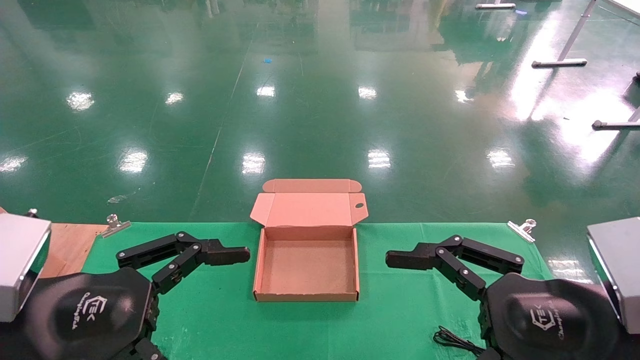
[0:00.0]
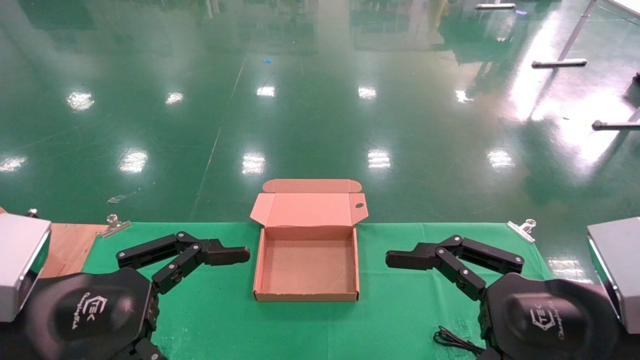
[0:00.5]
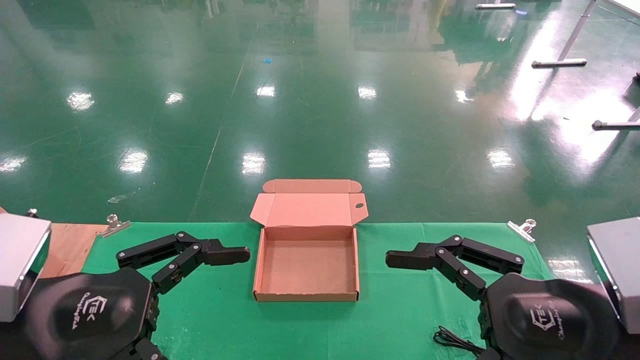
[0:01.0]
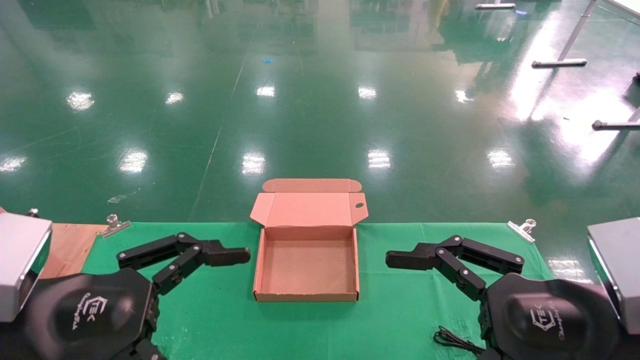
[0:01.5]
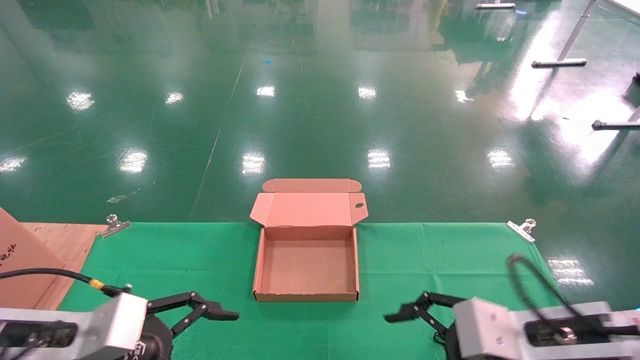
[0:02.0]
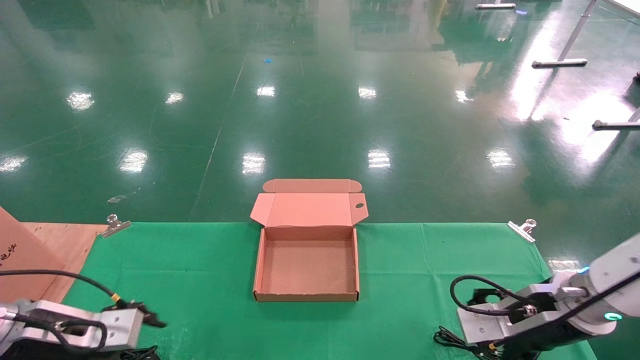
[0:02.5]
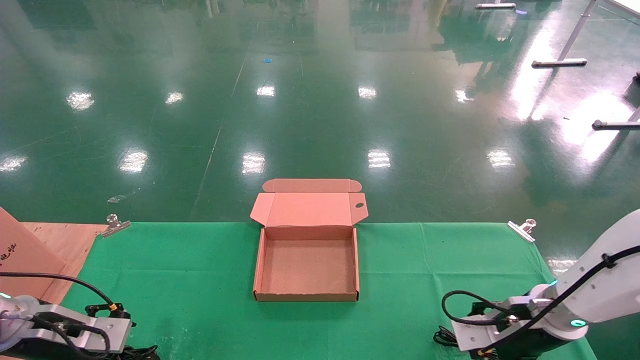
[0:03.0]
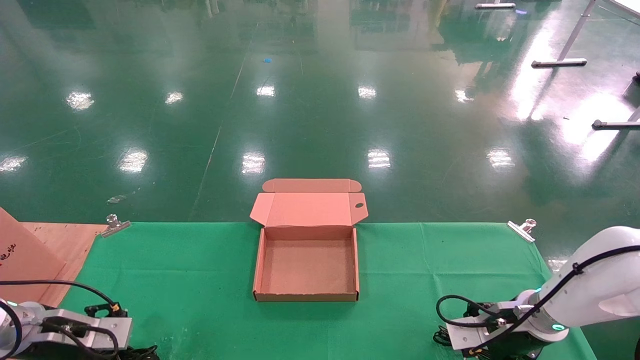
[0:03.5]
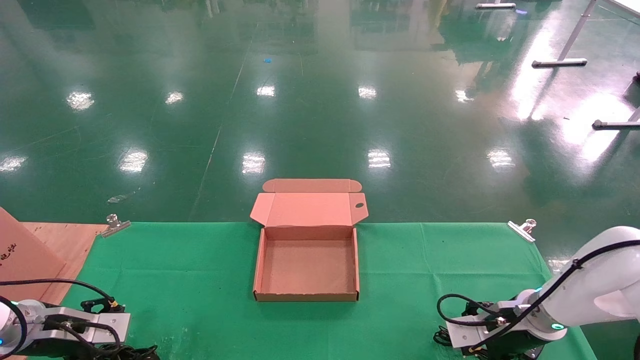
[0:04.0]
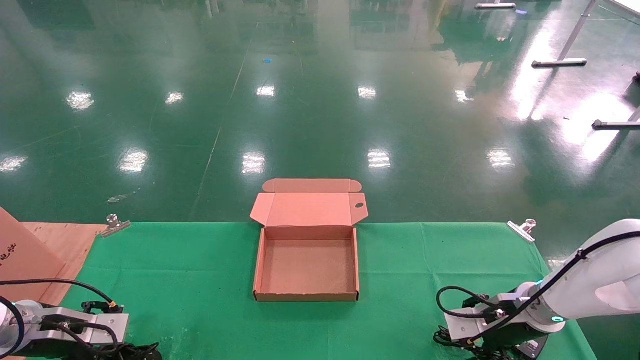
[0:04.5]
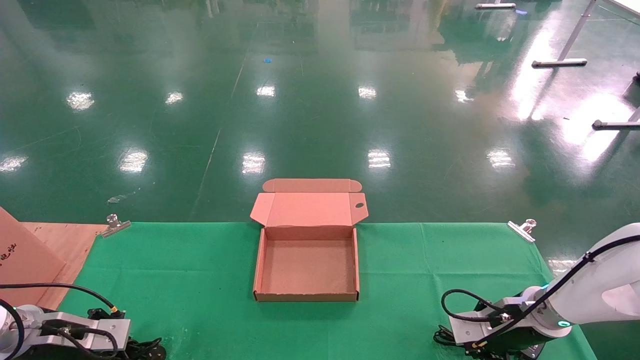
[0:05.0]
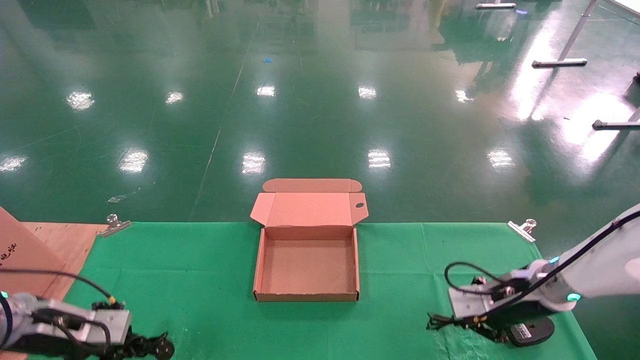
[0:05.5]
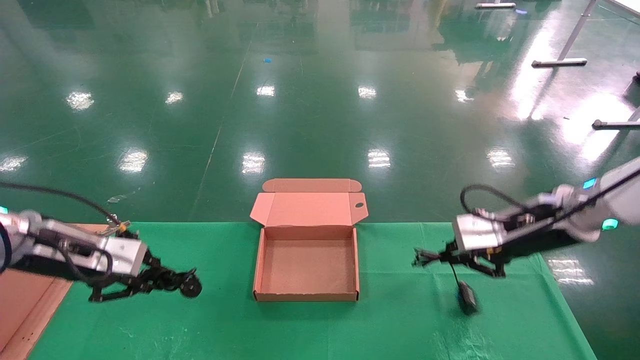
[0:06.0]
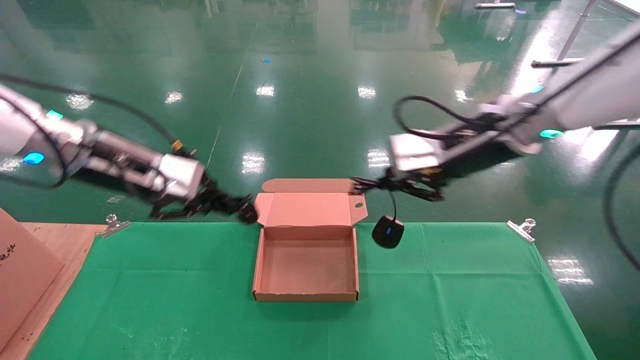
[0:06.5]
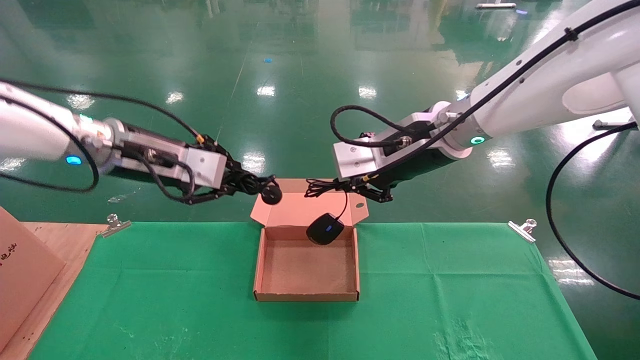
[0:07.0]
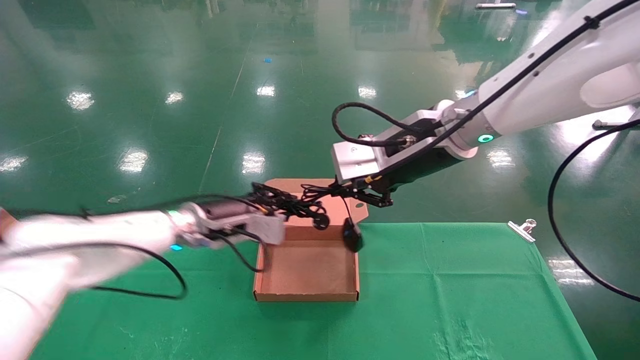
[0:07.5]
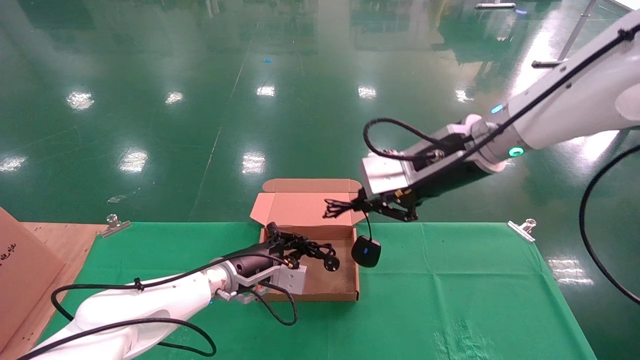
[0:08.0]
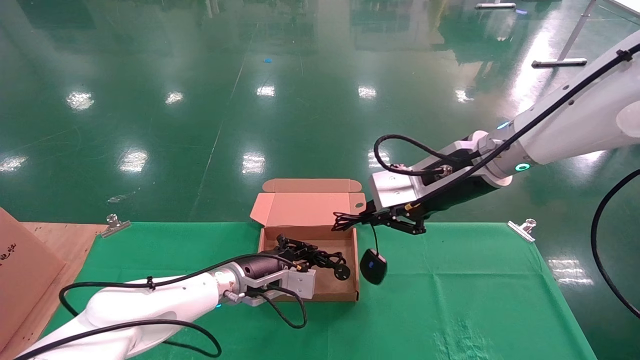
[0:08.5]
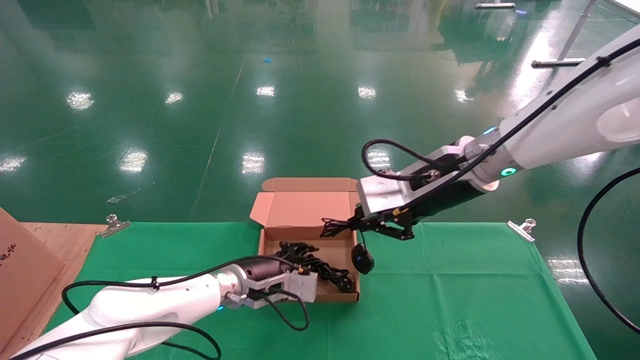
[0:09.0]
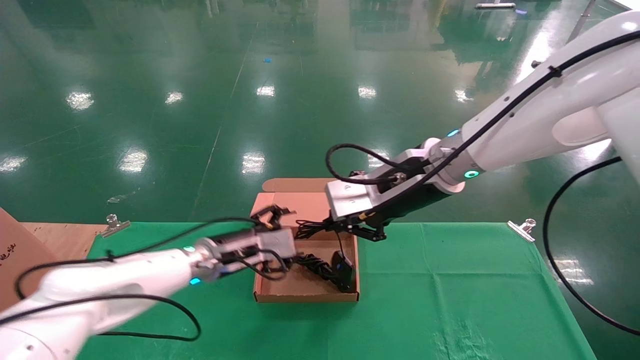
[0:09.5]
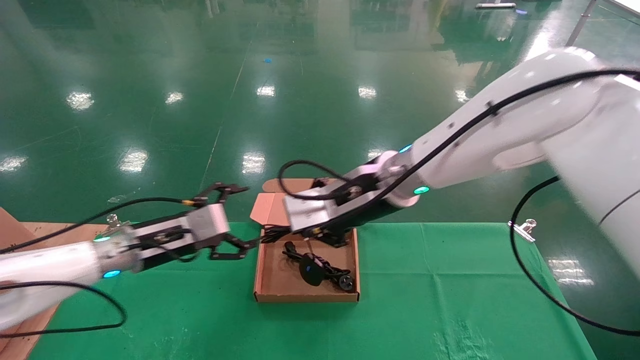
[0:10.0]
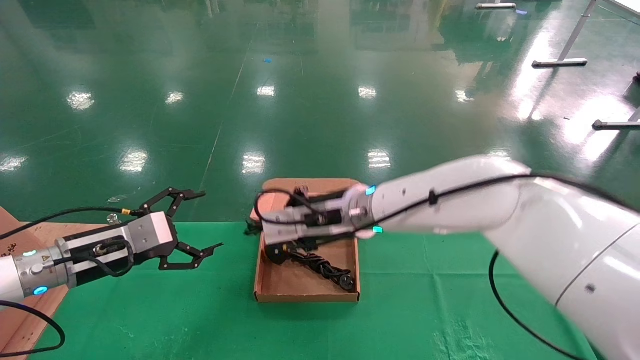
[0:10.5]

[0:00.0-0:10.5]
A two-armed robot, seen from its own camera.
Step, 0:02.0 to 0:06.5: Grab and lift both the mouse and power cord from the accessory packaging area at the same time.
0:00.0 to 0:02.0: The right gripper is displaced forward and downward by some 10 cm, while the left gripper is displaced downward and forward by about 10 cm.
0:02.0 to 0:04.0: The right gripper shifts some 20 cm forward and downward, while the left gripper goes some 20 cm to the left, forward and downward.
0:04.0 to 0:06.5: The right gripper heads upward, covering roughly 30 cm, and closes, while the left gripper shifts some 30 cm upward and to the right, and closes.
0:06.5 to 0:08.5: The left gripper is displaced downward, to the right and forward by roughly 30 cm.
0:08.5 to 0:10.5: The left gripper shifts some 20 cm to the left, and opens. The right gripper is displaced to the left and downward by roughly 15 cm.

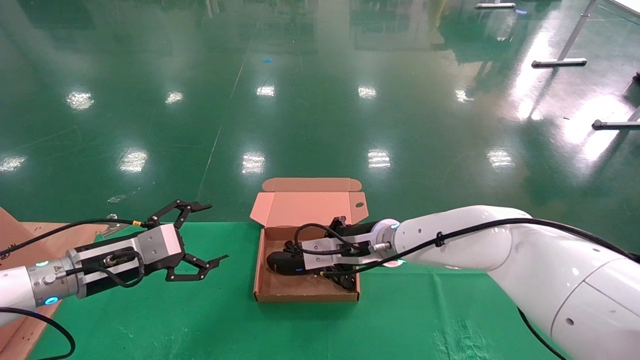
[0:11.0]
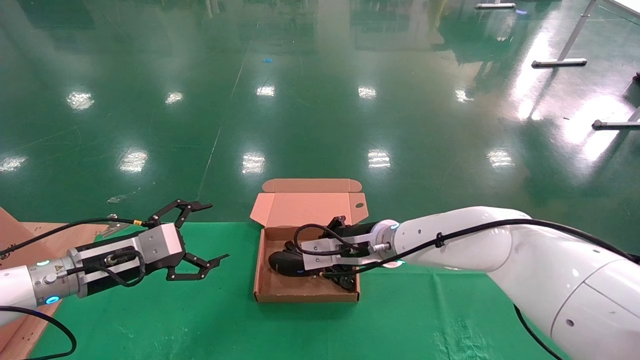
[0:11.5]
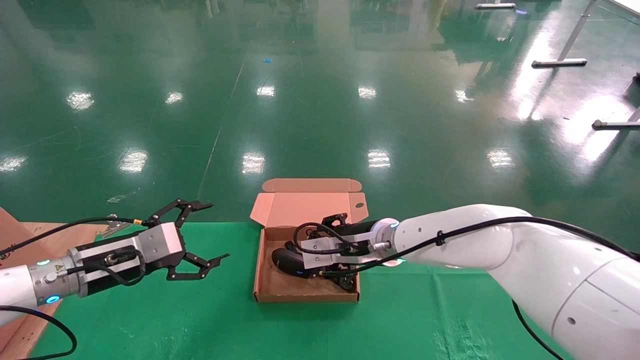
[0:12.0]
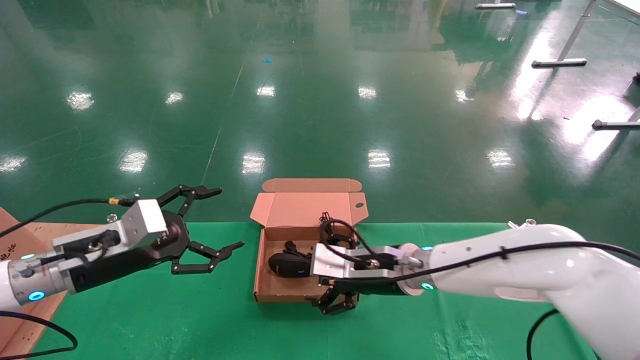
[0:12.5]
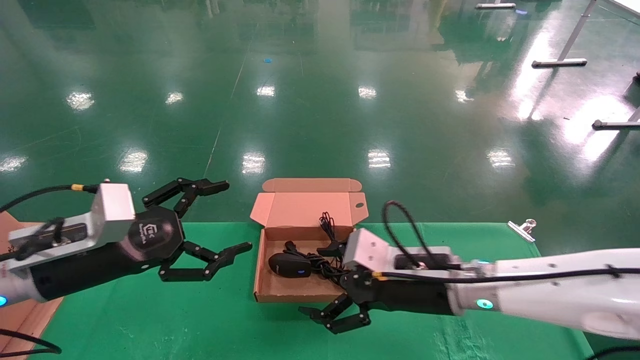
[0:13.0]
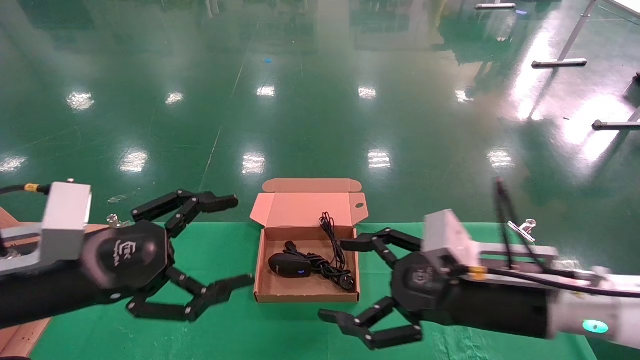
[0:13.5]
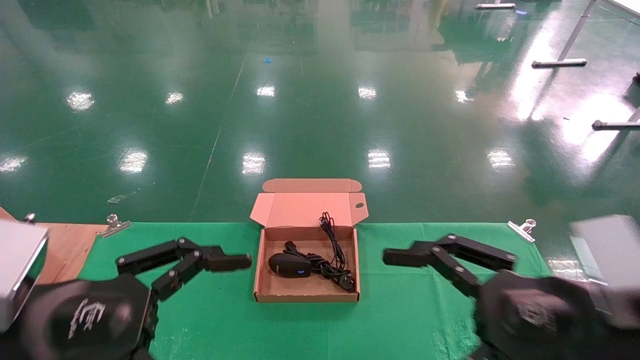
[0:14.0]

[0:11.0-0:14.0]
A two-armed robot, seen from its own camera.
Step, 0:11.0 to 0:13.5: Place the mouse and power cord into the box.
0:11.0 to 0:12.5: The right gripper moves roughly 5 cm, and opens its fingers; the left gripper moves roughly 5 cm.
0:12.5 to 0:14.0: The left gripper shifts approximately 15 cm backward. Meanwhile the right gripper travels backward and to the right by about 25 cm.
